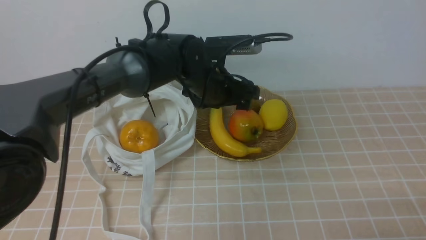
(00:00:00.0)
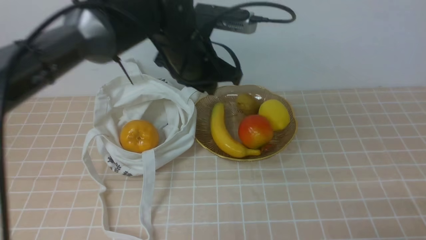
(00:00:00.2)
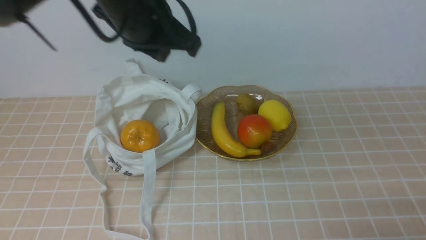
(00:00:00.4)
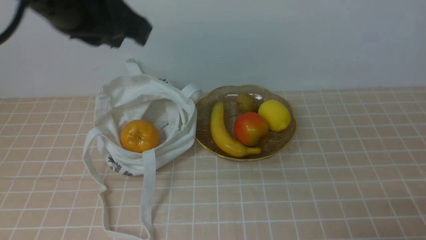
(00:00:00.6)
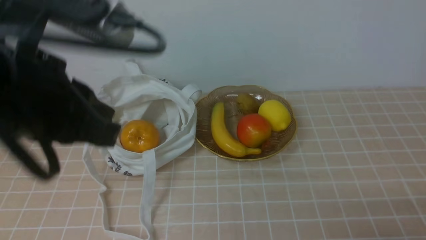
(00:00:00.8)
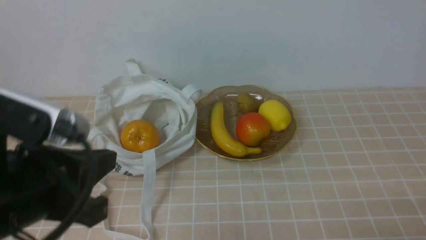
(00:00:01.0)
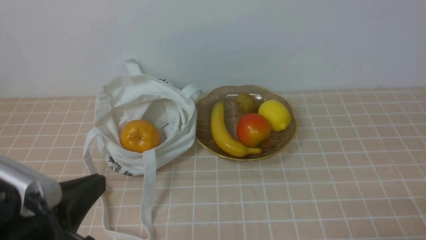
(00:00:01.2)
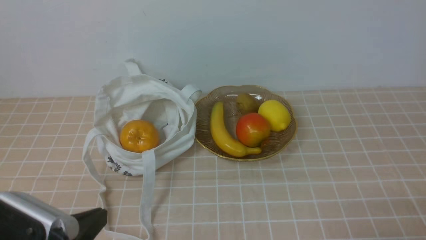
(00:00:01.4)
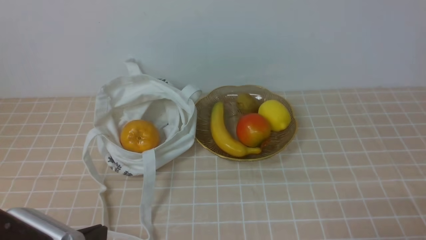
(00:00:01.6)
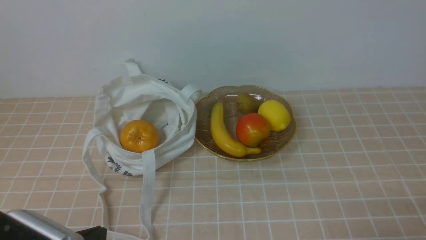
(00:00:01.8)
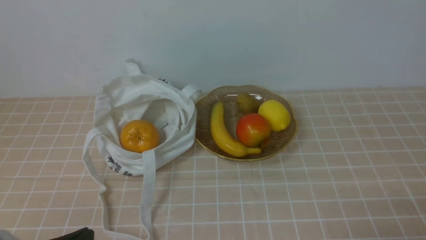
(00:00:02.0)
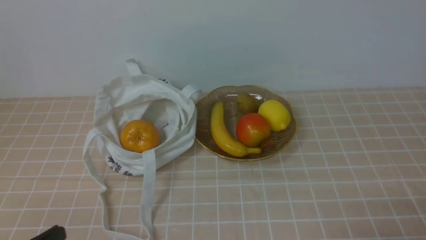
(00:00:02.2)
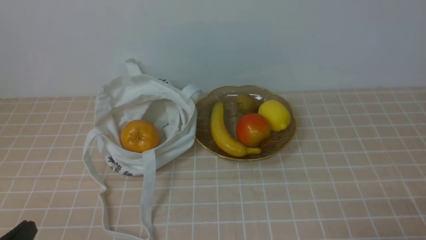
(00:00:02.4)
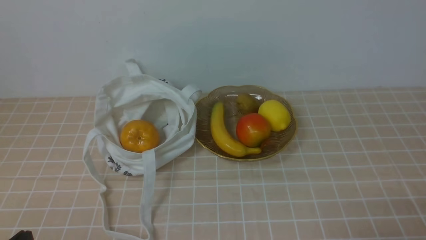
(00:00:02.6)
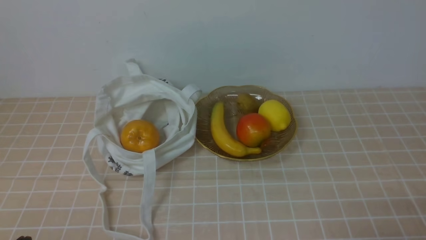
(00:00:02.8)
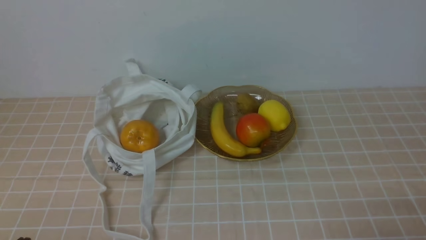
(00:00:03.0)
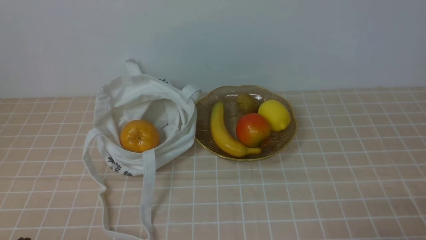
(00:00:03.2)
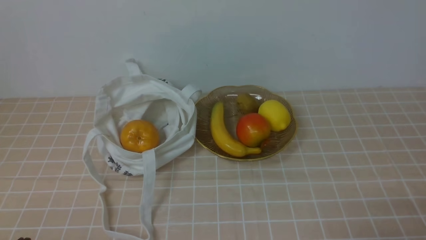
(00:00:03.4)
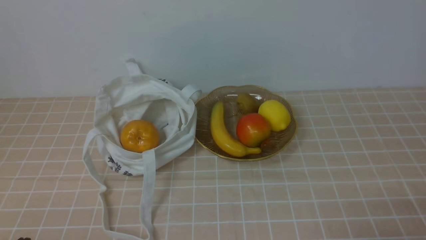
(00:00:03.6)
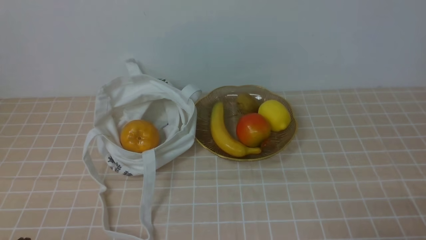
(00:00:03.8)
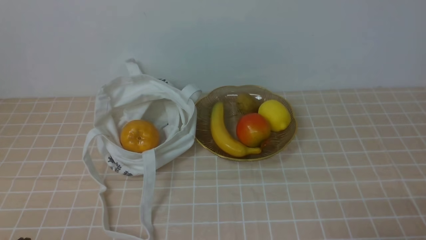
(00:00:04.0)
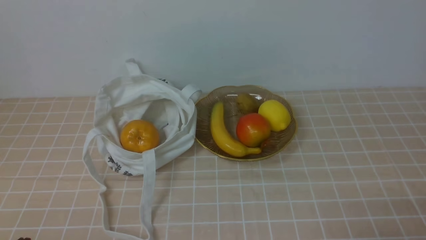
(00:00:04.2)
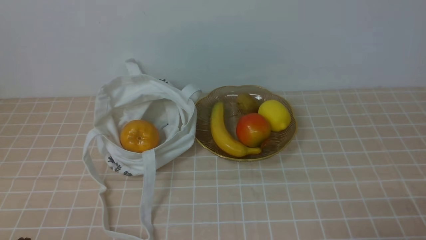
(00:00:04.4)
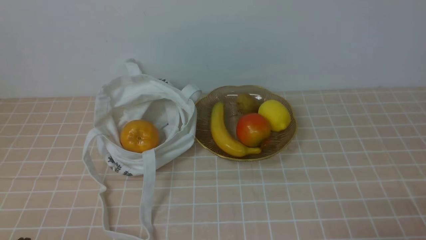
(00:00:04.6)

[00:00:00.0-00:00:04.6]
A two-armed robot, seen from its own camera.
00:00:00.0 to 00:00:01.6: The left gripper goes some 35 cm backward and to the left, and closes.
00:00:01.6 to 00:00:03.0: The left gripper goes roughly 5 cm to the left.
00:00:03.0 to 00:00:04.6: Both grippers stay about where they are.

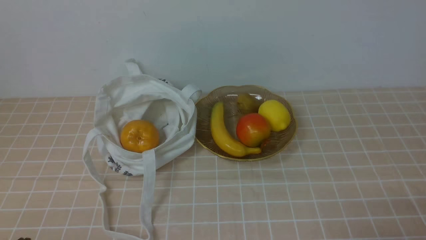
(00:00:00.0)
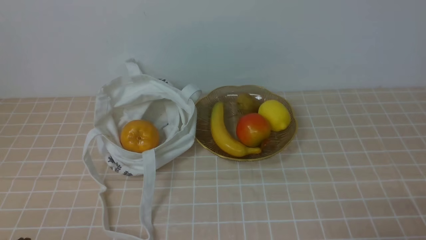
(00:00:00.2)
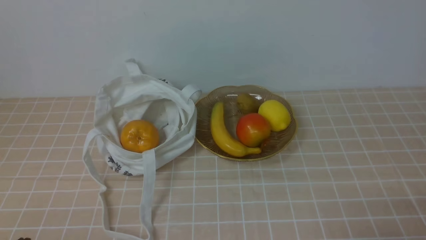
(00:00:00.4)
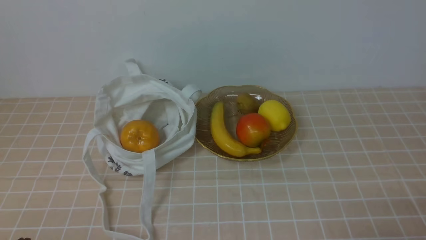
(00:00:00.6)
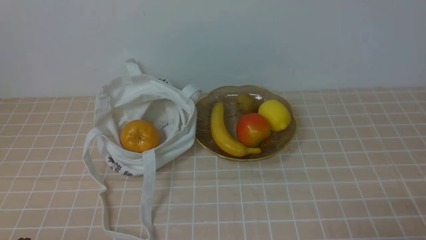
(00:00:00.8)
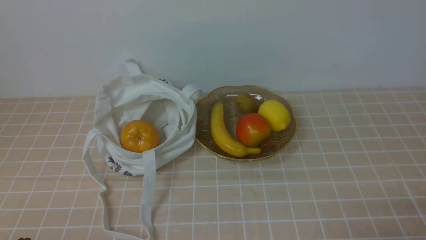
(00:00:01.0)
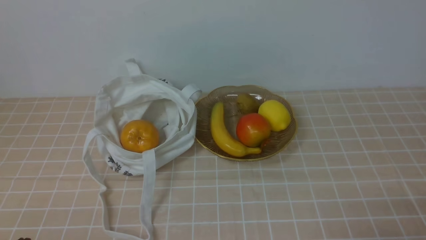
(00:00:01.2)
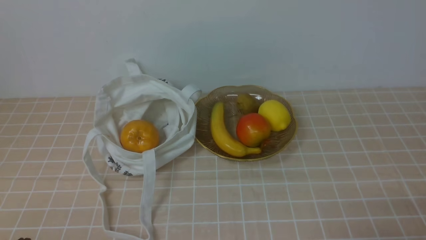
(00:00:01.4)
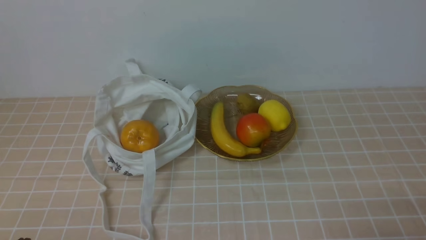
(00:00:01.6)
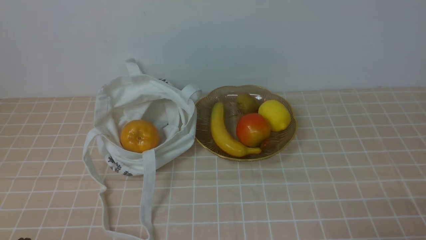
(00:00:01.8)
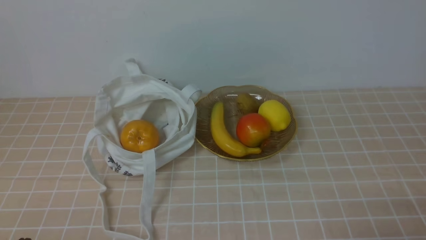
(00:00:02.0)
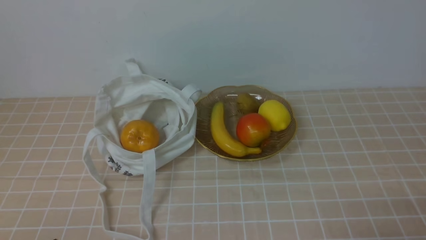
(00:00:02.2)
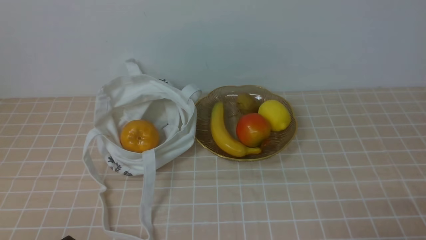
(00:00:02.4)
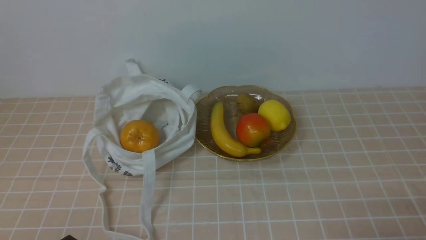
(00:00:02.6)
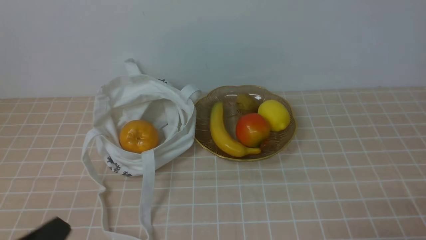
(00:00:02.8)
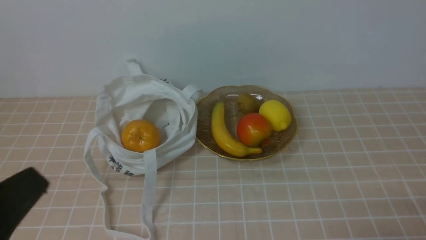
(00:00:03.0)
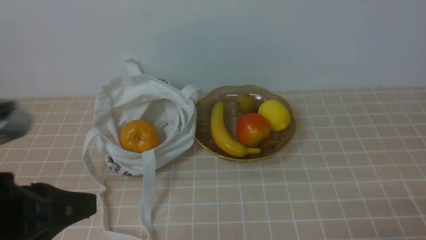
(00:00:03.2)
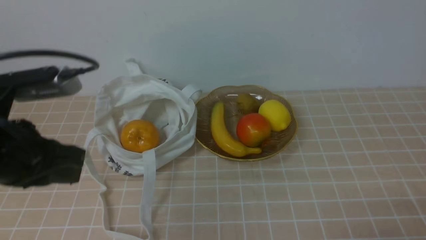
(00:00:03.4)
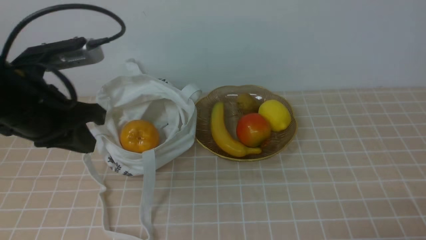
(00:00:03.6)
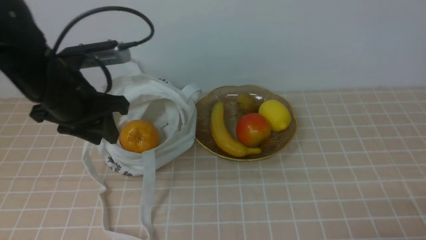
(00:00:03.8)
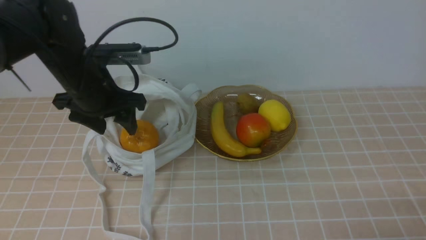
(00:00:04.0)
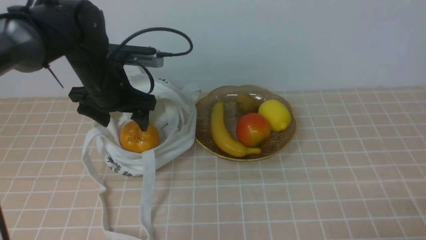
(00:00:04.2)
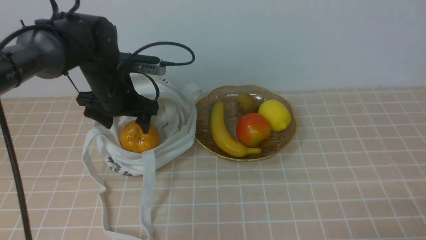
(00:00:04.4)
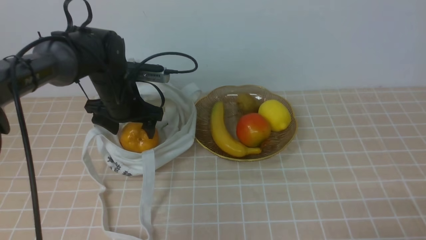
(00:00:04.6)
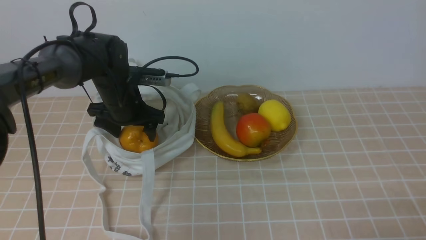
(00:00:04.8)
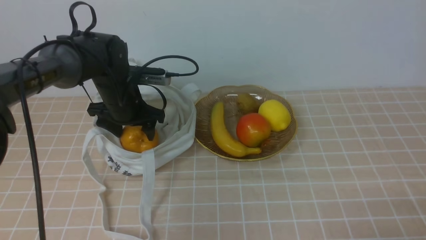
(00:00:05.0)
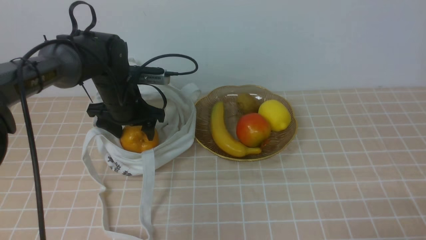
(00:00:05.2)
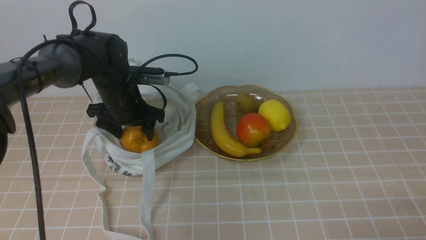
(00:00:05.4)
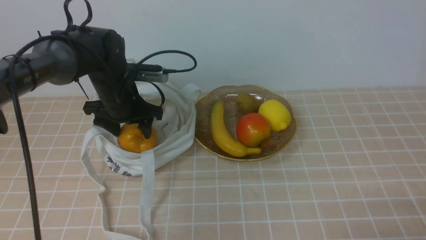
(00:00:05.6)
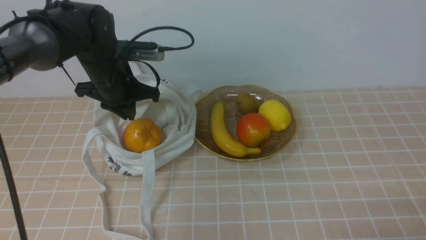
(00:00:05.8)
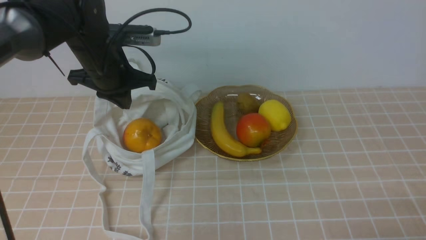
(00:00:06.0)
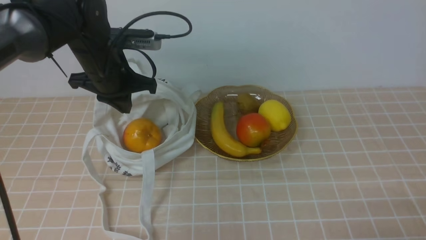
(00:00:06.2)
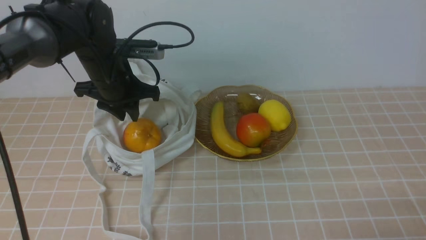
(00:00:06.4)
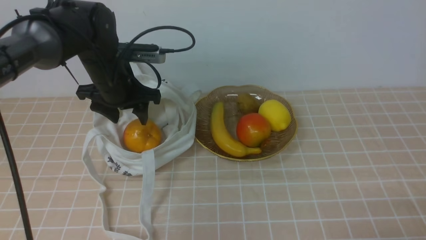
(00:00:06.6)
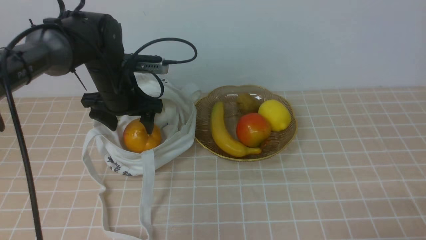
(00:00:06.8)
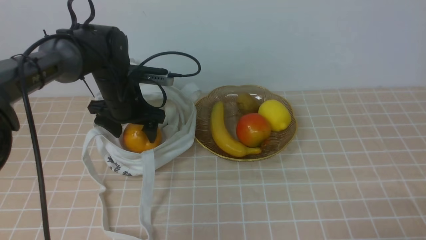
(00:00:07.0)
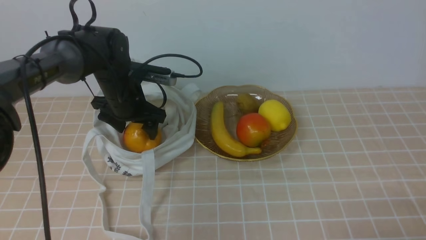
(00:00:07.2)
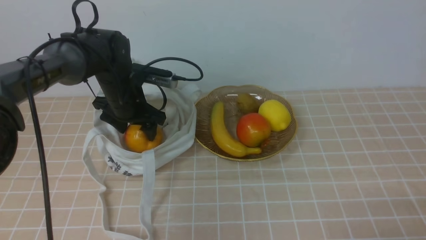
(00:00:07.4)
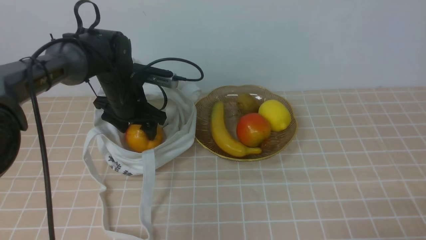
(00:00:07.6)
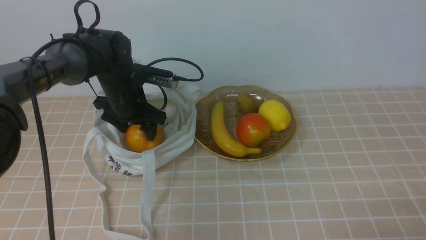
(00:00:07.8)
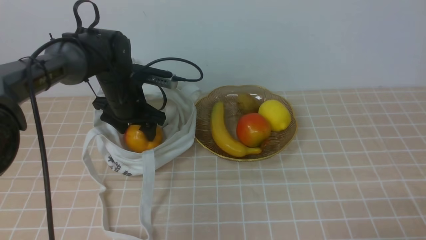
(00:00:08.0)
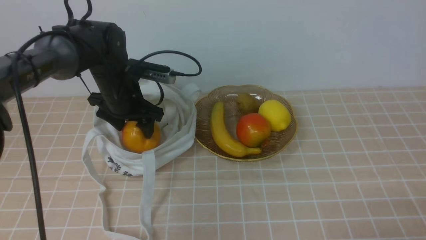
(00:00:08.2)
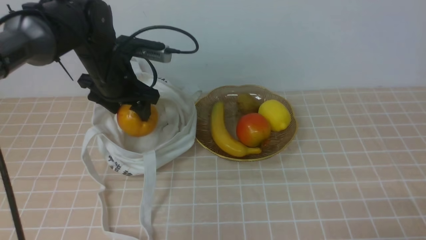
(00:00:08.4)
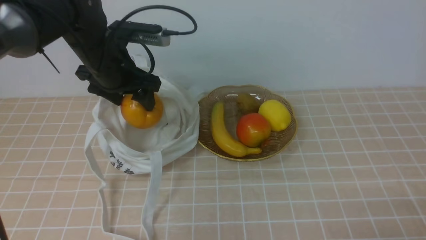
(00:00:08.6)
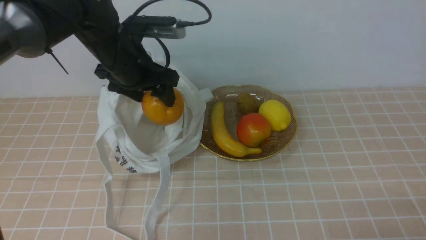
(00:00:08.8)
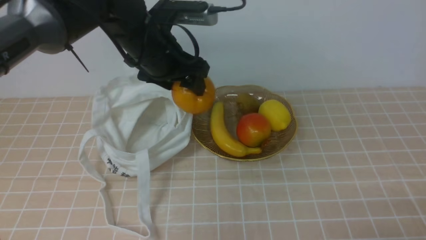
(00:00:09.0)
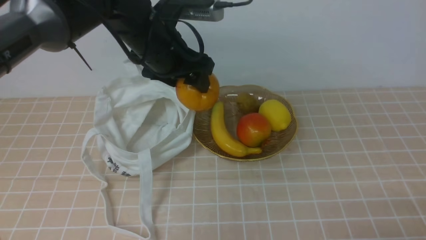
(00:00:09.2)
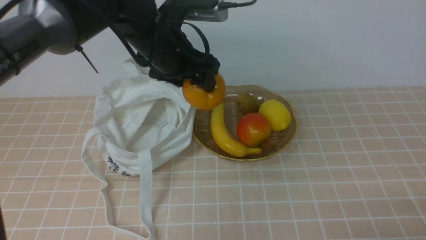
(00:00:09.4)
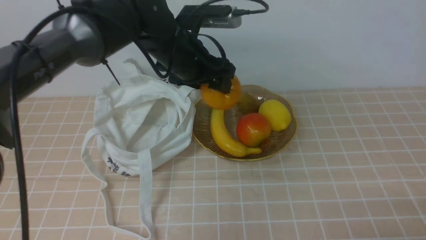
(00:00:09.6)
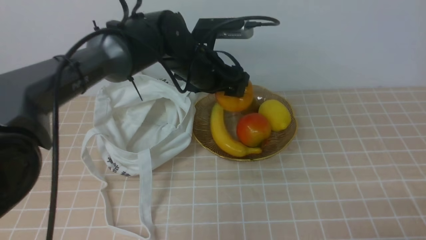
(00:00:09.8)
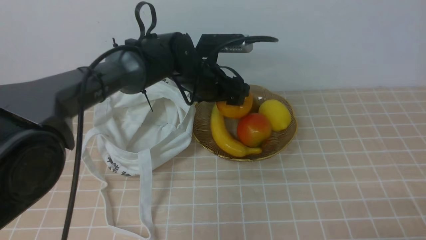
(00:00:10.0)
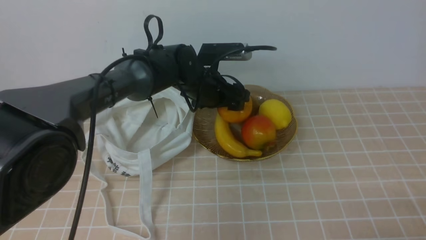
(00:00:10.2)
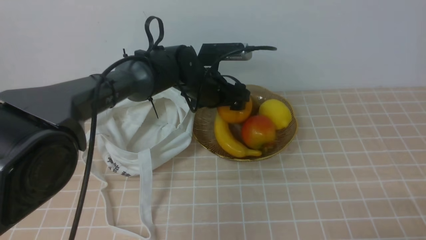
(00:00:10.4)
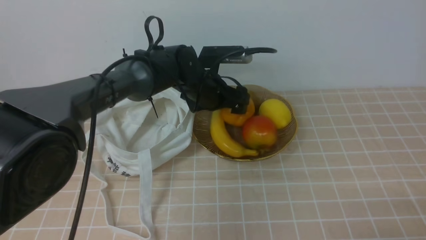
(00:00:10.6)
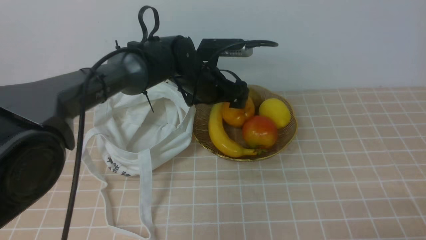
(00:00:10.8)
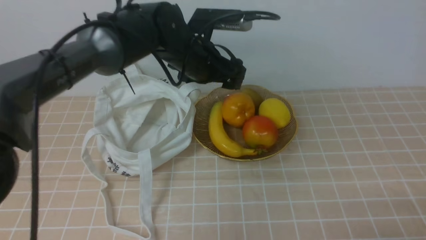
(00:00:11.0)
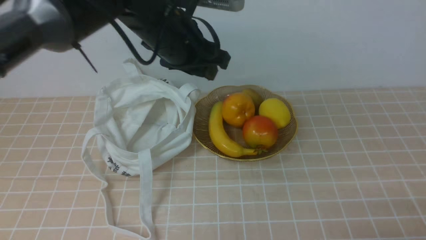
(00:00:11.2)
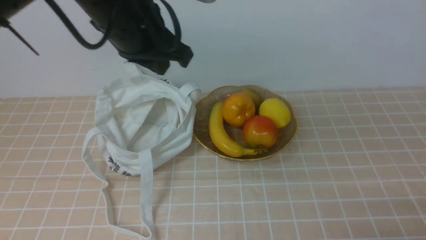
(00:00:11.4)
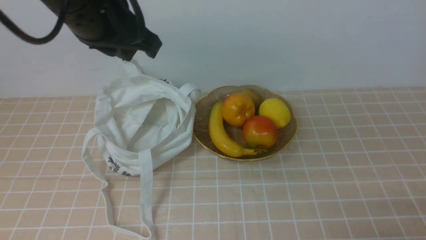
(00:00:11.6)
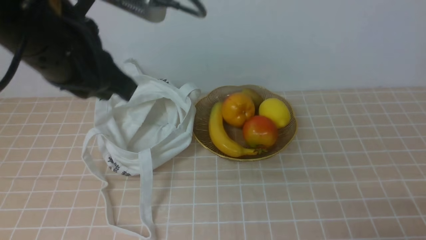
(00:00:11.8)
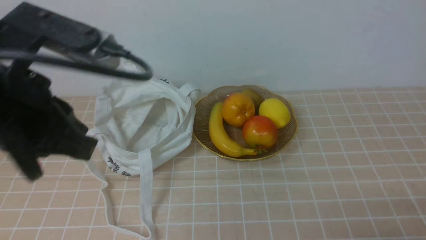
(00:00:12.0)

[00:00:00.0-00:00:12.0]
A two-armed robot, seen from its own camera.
Step, 00:00:00.0 to 00:00:08.2: use the left arm to grab a pear from the bag.
Step, 00:00:08.4 to 00:00:10.8: use the left arm to put the pear into the empty plate on the right.
00:00:00.0 to 00:00:01.6: Neither gripper changes place.
00:00:01.6 to 00:00:03.0: The left gripper shifts about 15 cm upward.
00:00:03.0 to 00:00:04.4: The left gripper is displaced forward by about 35 cm, and opens up.
00:00:04.4 to 00:00:06.0: The left gripper closes.
00:00:06.0 to 00:00:07.6: The left gripper travels downward by roughly 10 cm, and opens up.
00:00:07.6 to 00:00:09.0: The left gripper travels upward and to the right by approximately 15 cm.
00:00:09.0 to 00:00:10.4: The left gripper goes approximately 15 cm downward, to the right and forward.
00:00:10.4 to 00:00:12.0: The left gripper moves backward, upward and to the left, approximately 35 cm, and closes.
